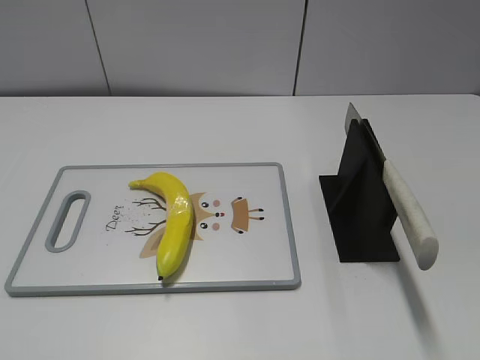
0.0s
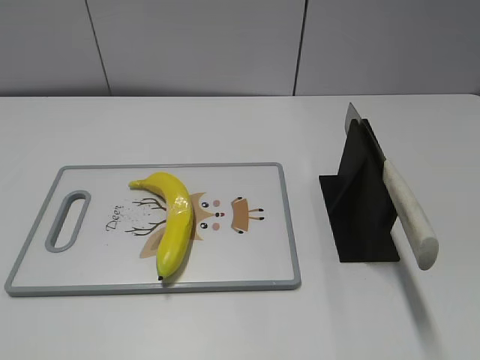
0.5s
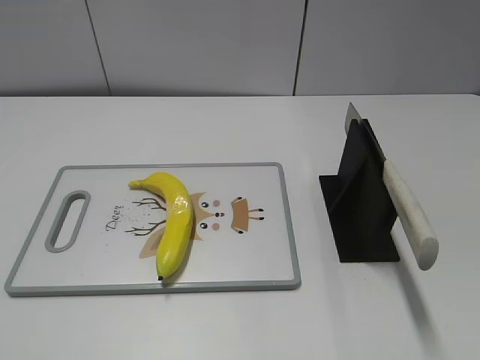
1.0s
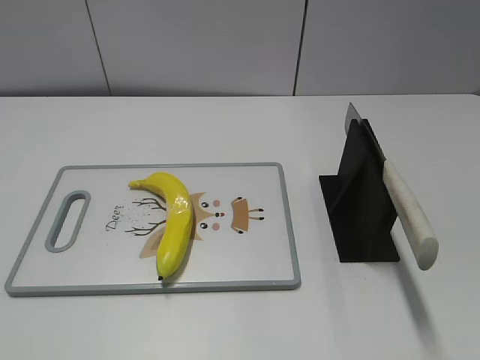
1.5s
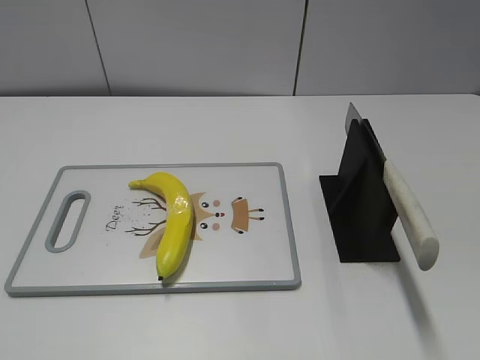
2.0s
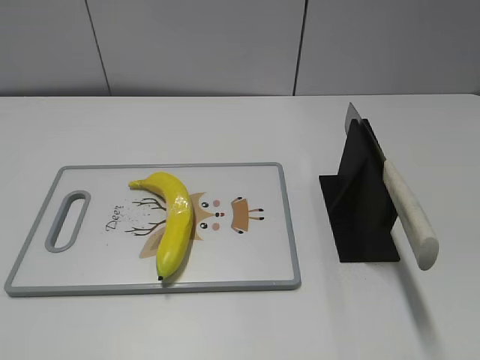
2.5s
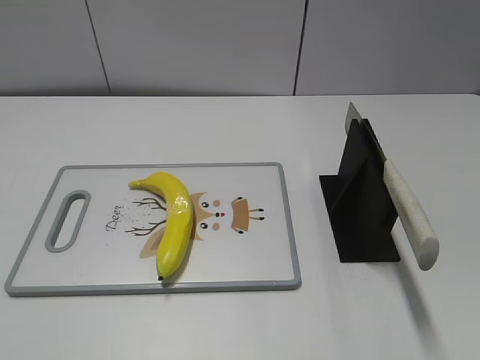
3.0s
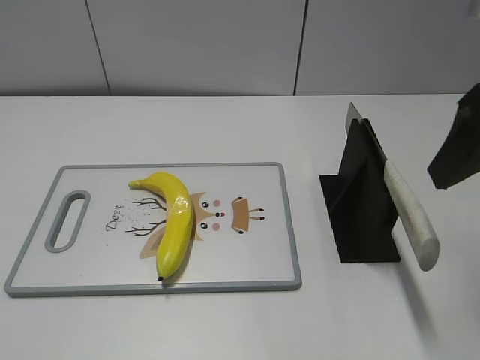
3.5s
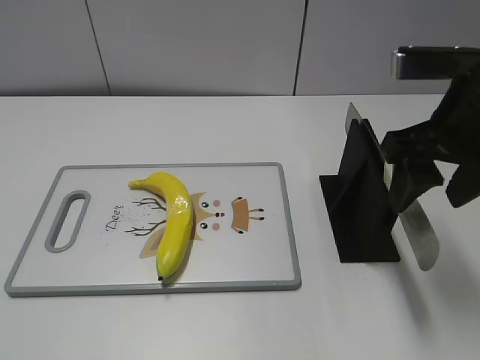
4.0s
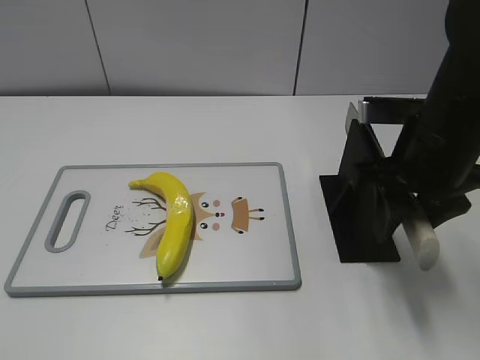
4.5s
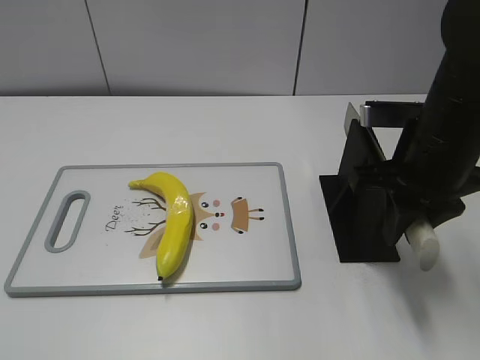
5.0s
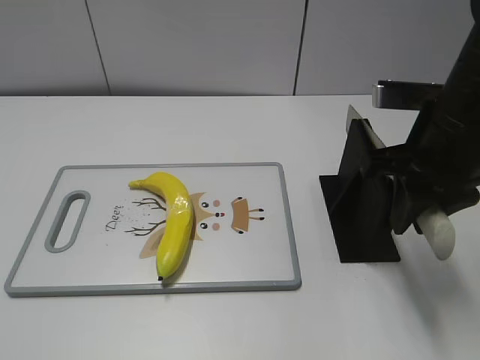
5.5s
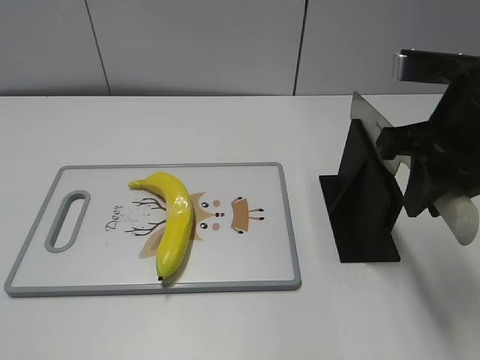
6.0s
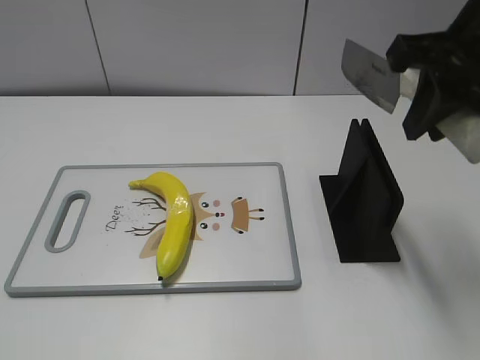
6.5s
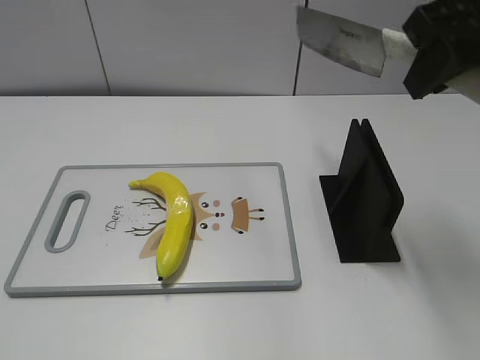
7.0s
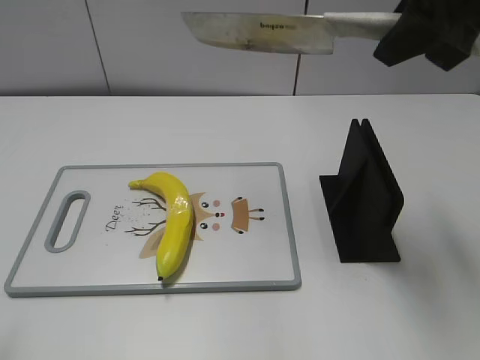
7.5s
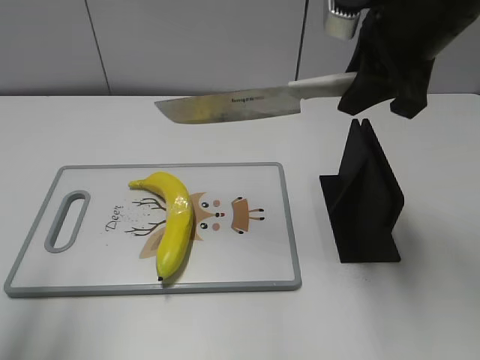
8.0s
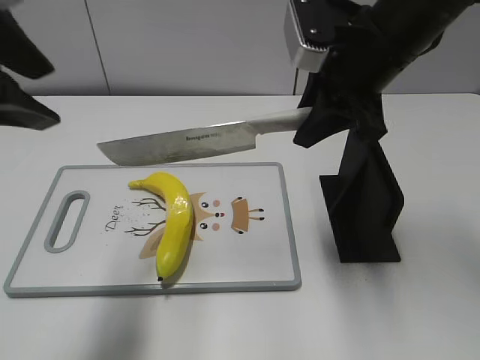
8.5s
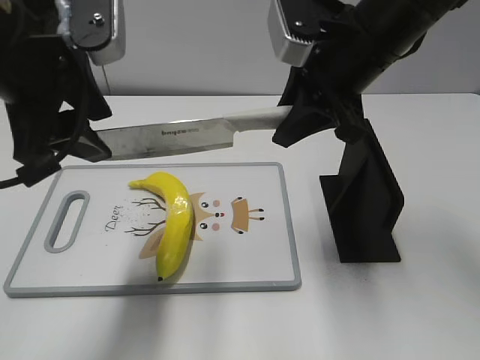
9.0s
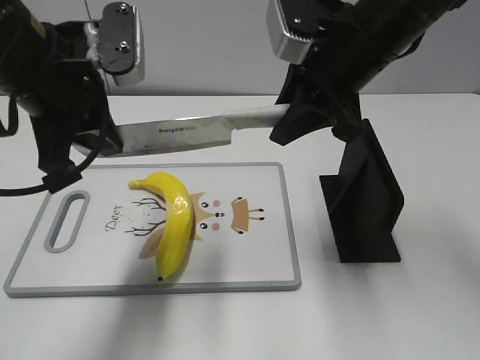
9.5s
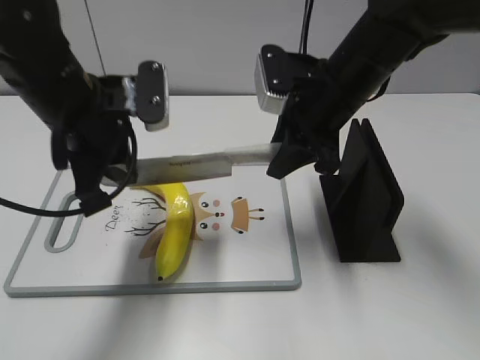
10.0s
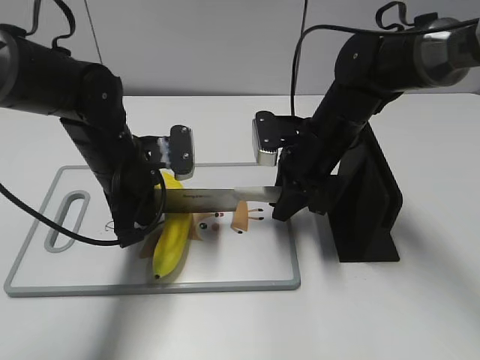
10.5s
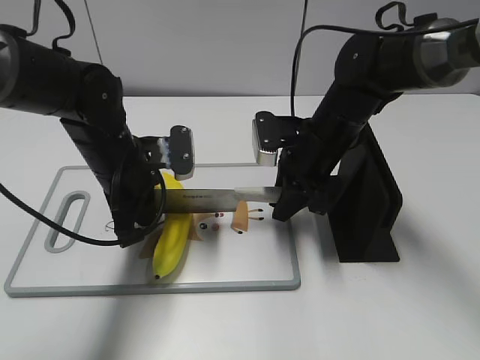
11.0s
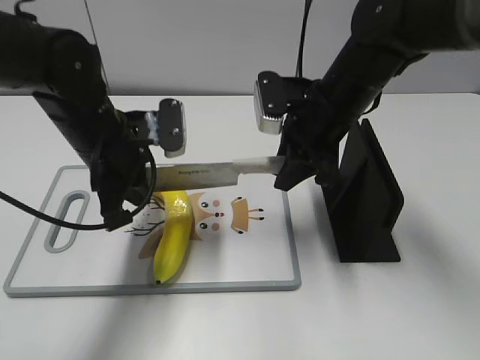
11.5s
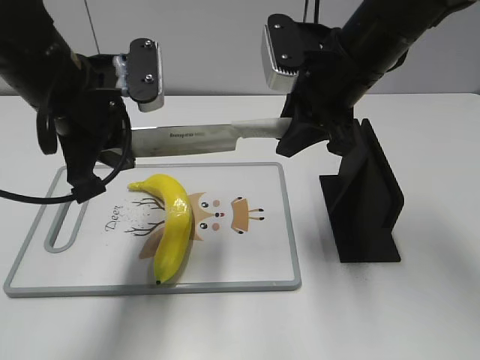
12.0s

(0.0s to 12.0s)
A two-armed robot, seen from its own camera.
Task of the whole recording: cut plastic banana.
Step, 0.0s - 5.5s: Grab the knife handle with your right hand.
Step, 6.0s - 11.5s: Lift the knife with your right hand.
2.0s - 4.0s: The right gripper shifts some 25 cm forward and to the left.
4.0s - 6.0s: The right gripper closes its fingers.
6.0s - 8.0s: The right gripper moves forward, roughly 5 cm; the left gripper shifts roughly 15 cm forward and upward.
8.0s - 10.0s: The left gripper goes approximately 25 cm forward, downward and to the right, and closes its fingers. The right gripper goes some 10 cm downward.
10.0s - 12.0s: The left gripper travels downward and back again, roughly 10 cm each way. Meanwhile the right gripper travels downward and back again, approximately 10 cm each way.

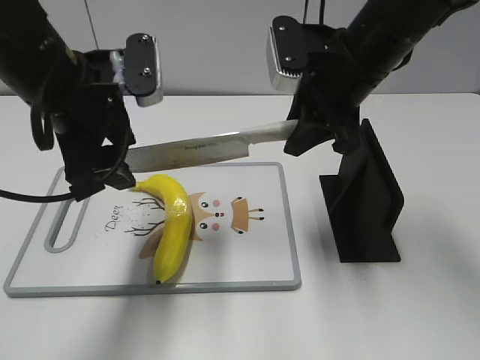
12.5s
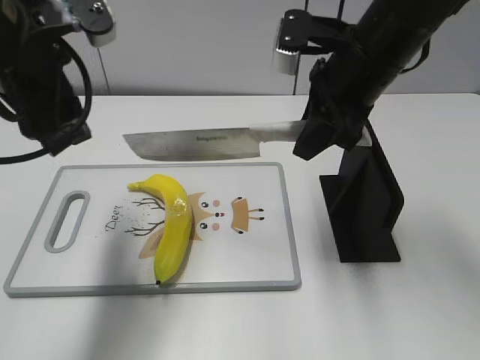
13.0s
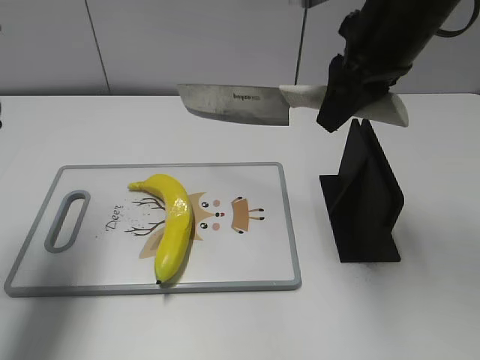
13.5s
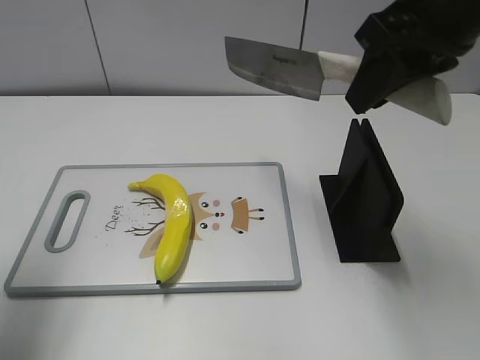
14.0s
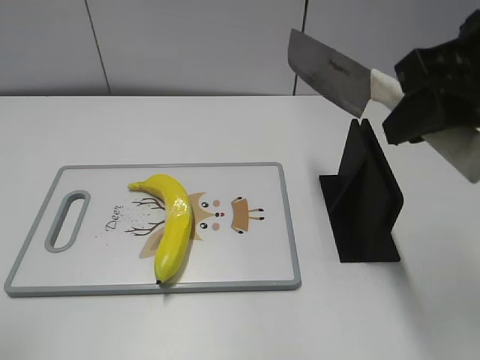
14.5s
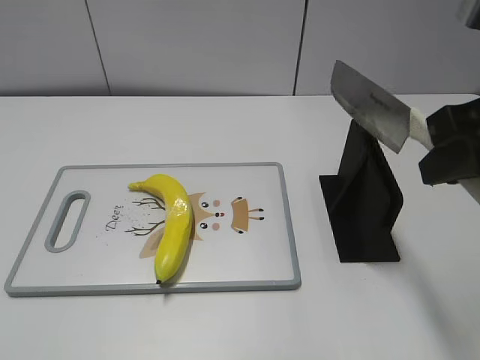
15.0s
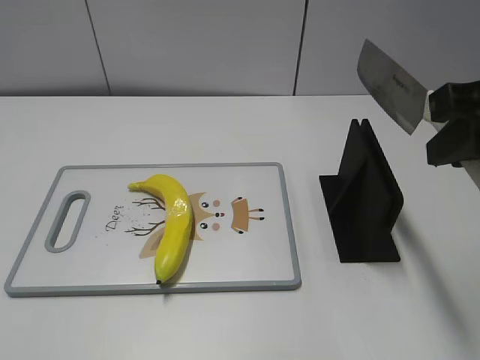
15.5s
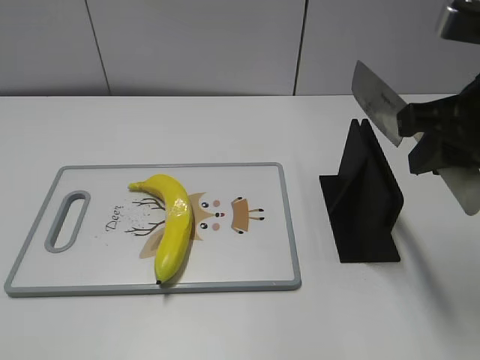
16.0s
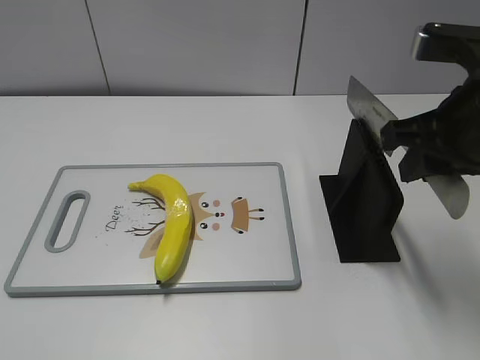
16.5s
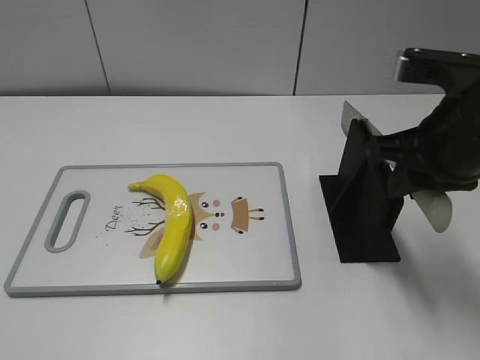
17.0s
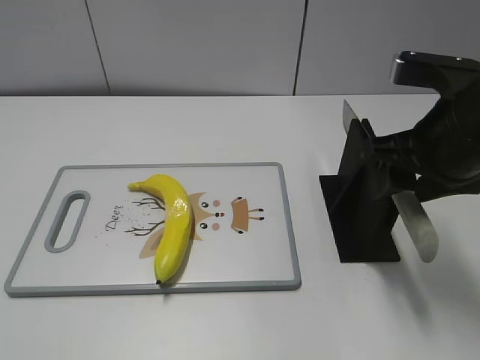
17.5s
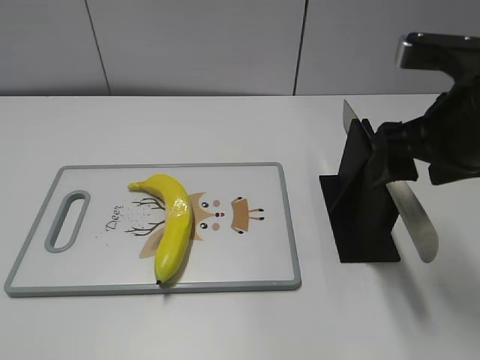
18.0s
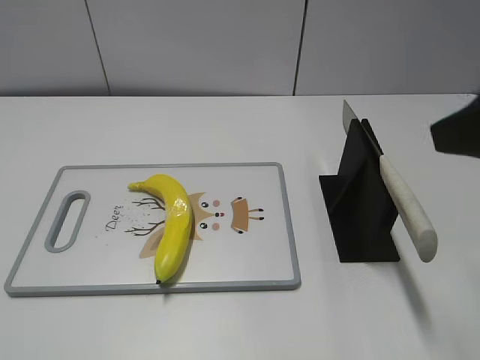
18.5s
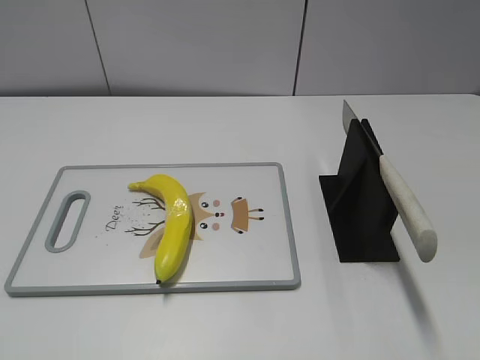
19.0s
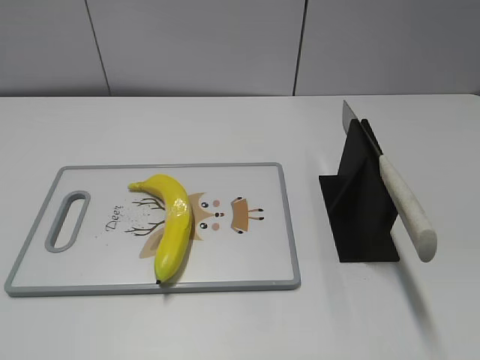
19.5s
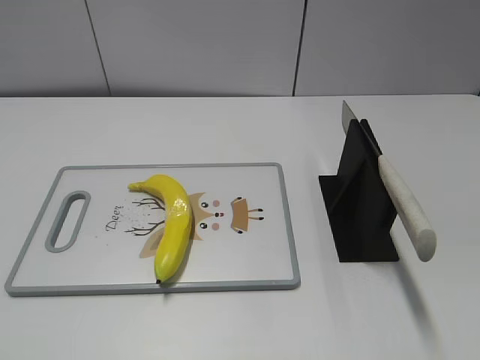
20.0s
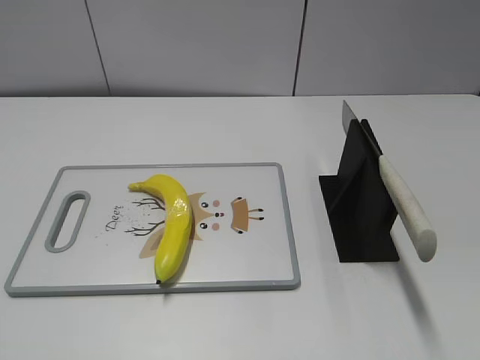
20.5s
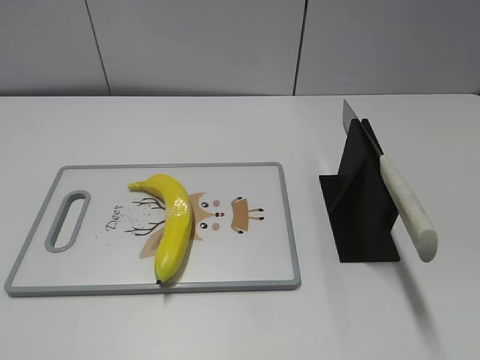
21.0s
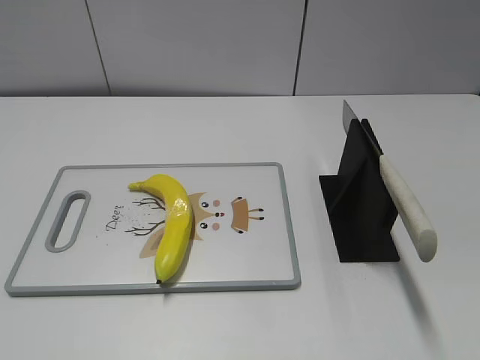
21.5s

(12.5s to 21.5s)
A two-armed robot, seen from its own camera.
Task of the whole recording: cut plastic banana.
Step, 13.5s - 14.5s: Secure the blade with your left hand.
Step, 15.0s - 21.5s: Place the knife on the storage rack with your right hand.
12.5s - 14.5s: The right gripper heads backward, upward and to the right, covering some 15 cm, while the left gripper moves backward, to the left and upward, approximately 25 cm.
14.5s - 17.0s: The right gripper moves downward, roughly 10 cm; the left gripper heads backward and downward, covering roughly 15 cm.
17.0s - 19.5s: The right gripper travels backward and to the right by approximately 25 cm, and opens up.

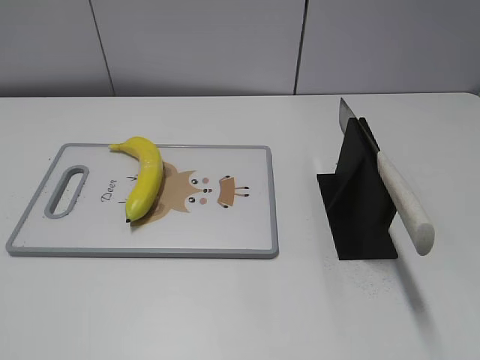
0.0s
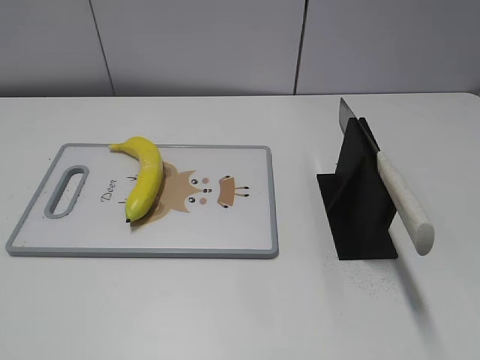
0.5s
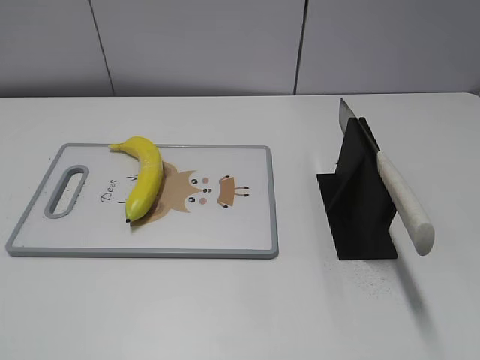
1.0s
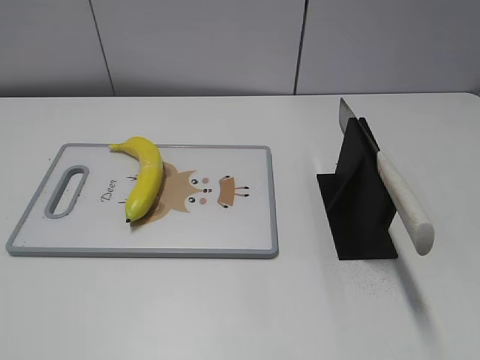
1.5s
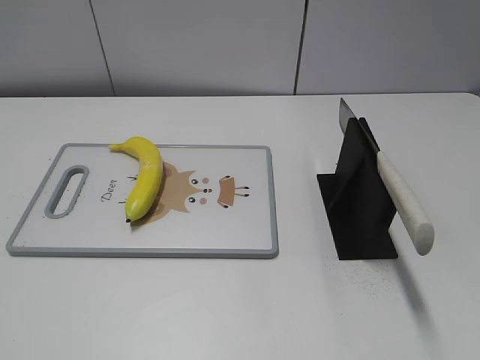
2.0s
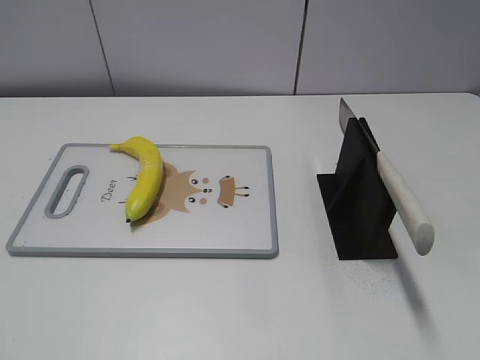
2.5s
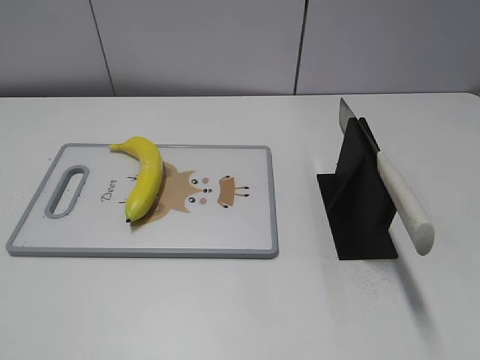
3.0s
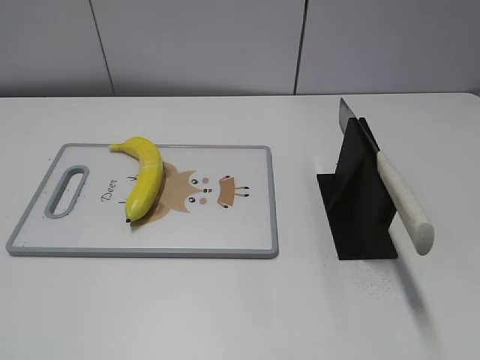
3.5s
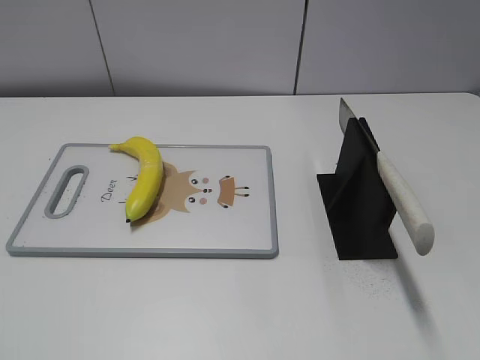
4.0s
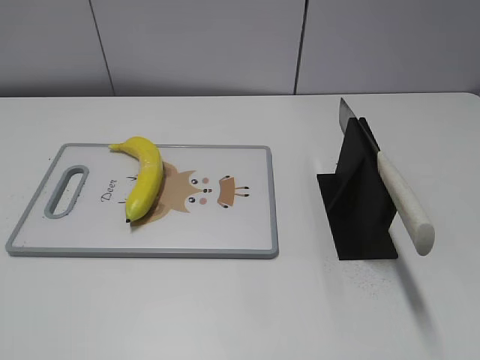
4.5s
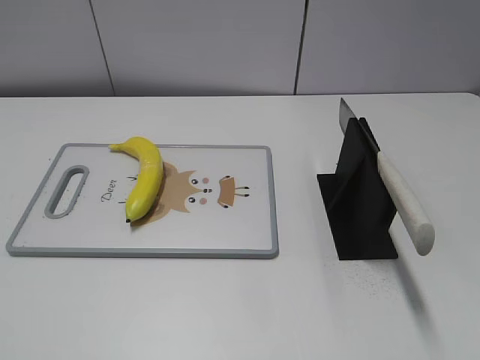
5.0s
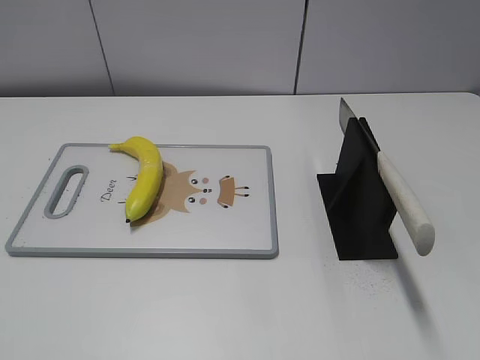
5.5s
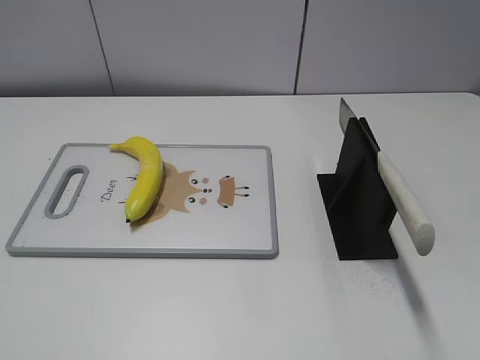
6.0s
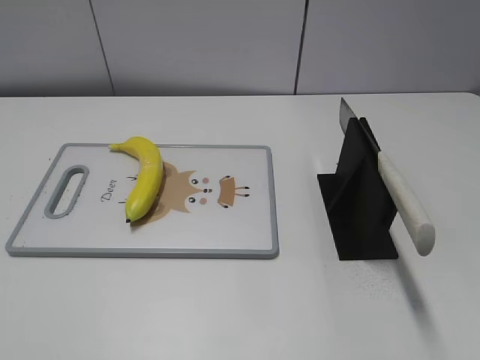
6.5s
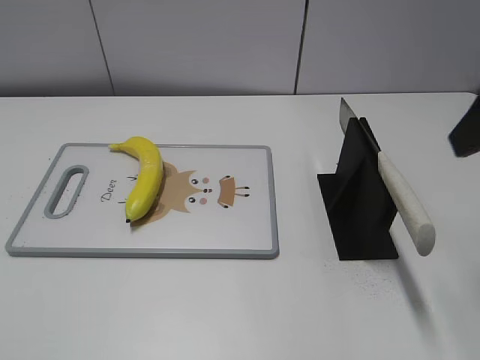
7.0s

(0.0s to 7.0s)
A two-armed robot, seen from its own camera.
Task of the whole recording: cut plastic banana.
2.0s - 5.0s: Both grippers stay put.
5.0s - 7.0s: The right gripper heads forward, covering roughly 20 cm.
